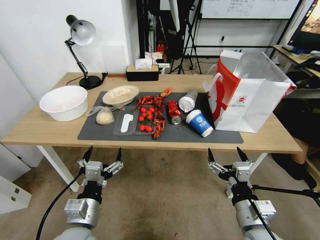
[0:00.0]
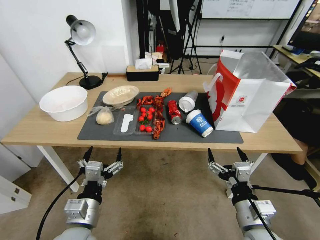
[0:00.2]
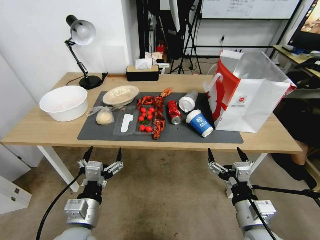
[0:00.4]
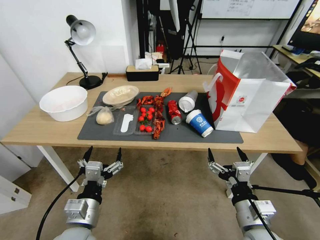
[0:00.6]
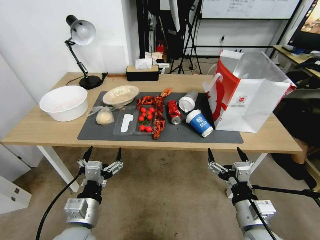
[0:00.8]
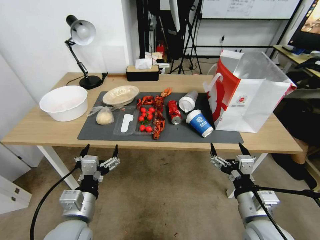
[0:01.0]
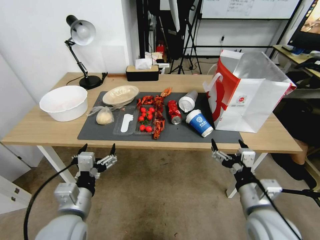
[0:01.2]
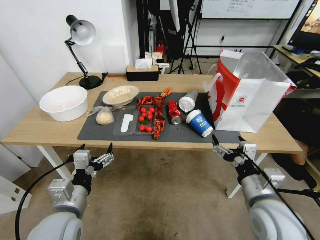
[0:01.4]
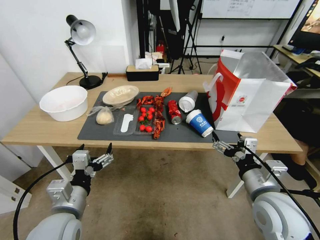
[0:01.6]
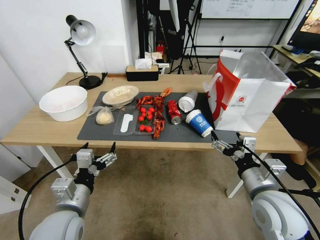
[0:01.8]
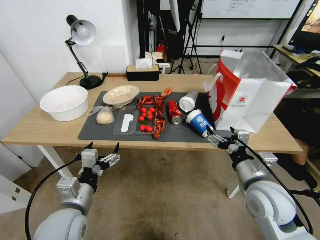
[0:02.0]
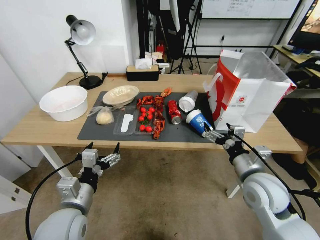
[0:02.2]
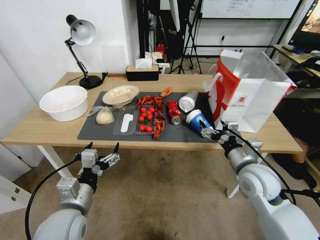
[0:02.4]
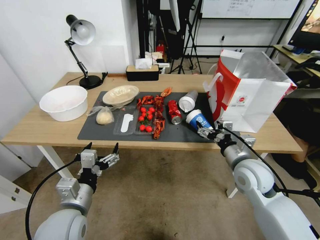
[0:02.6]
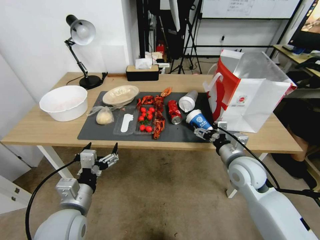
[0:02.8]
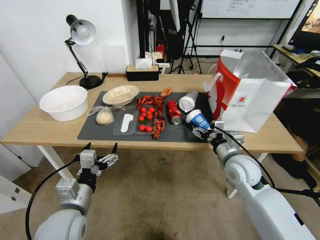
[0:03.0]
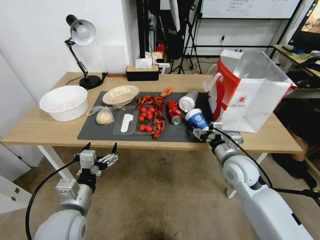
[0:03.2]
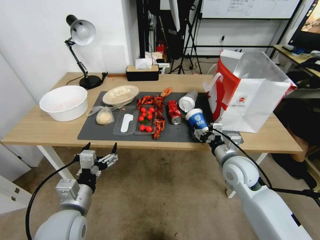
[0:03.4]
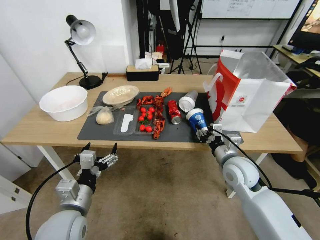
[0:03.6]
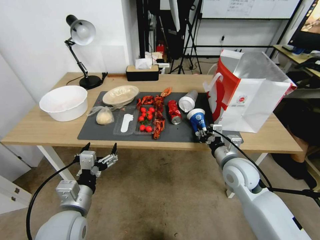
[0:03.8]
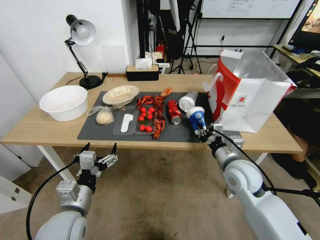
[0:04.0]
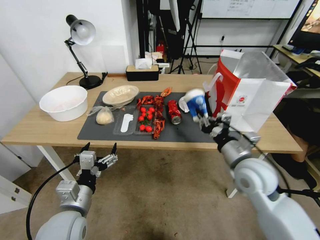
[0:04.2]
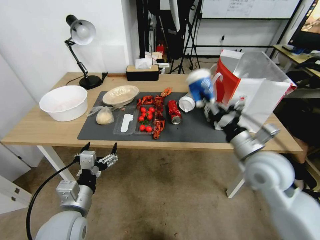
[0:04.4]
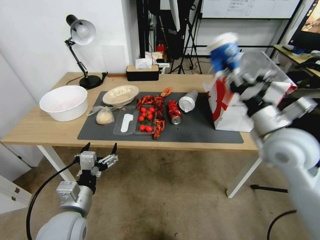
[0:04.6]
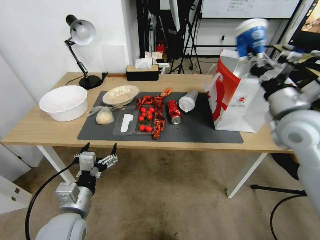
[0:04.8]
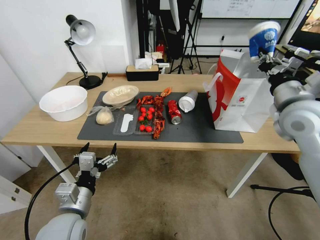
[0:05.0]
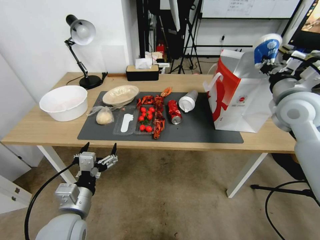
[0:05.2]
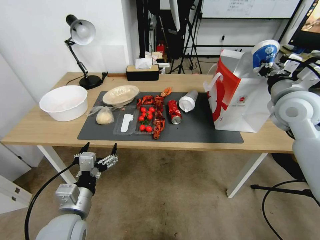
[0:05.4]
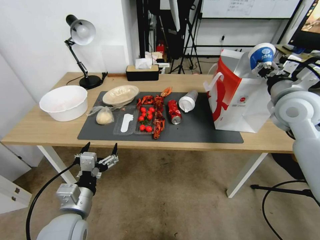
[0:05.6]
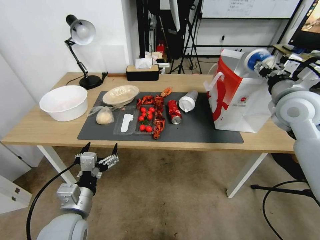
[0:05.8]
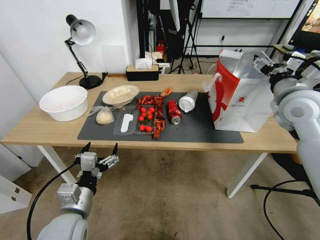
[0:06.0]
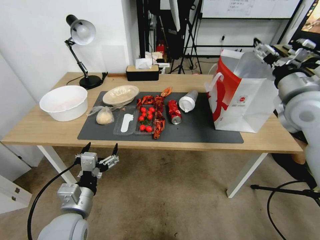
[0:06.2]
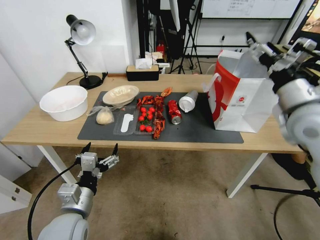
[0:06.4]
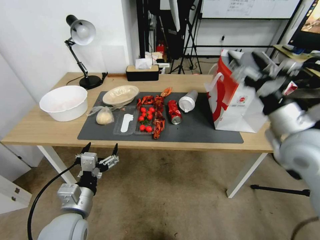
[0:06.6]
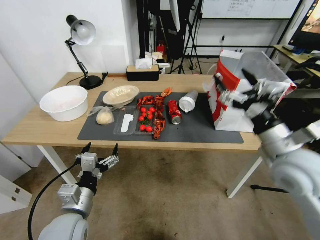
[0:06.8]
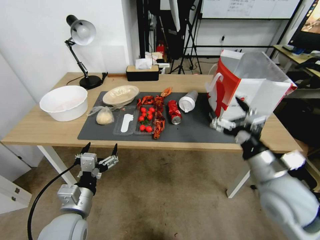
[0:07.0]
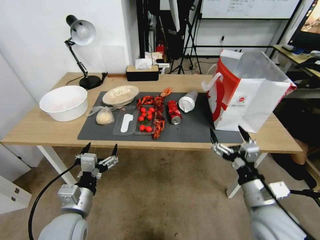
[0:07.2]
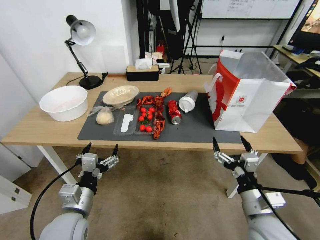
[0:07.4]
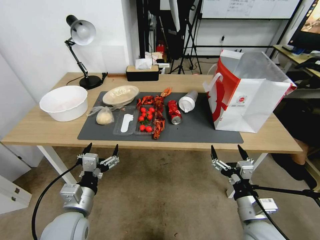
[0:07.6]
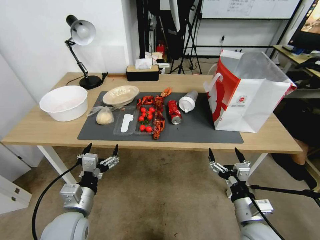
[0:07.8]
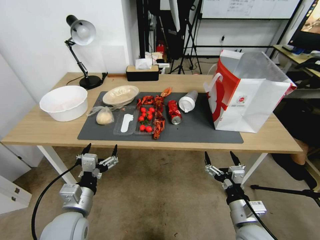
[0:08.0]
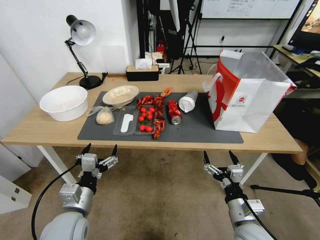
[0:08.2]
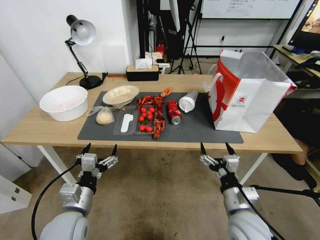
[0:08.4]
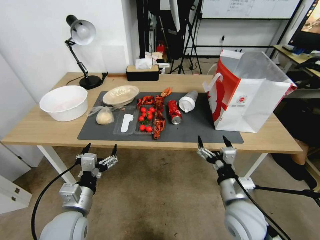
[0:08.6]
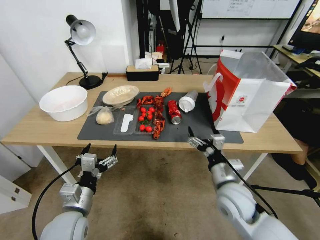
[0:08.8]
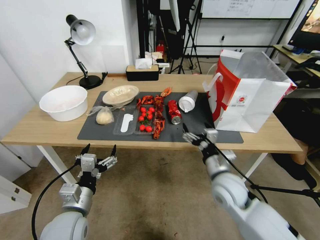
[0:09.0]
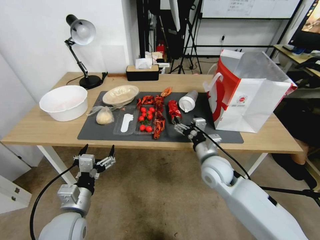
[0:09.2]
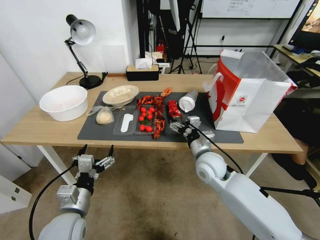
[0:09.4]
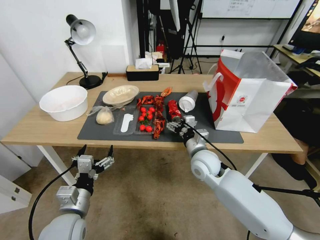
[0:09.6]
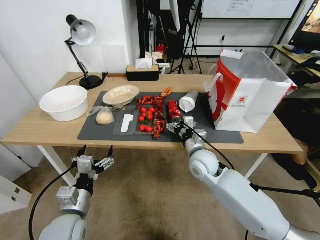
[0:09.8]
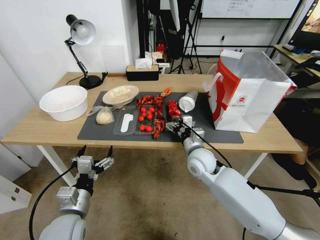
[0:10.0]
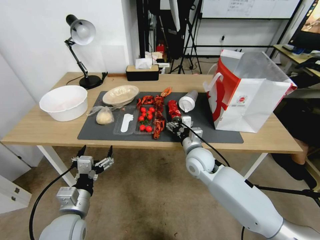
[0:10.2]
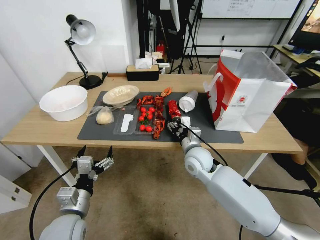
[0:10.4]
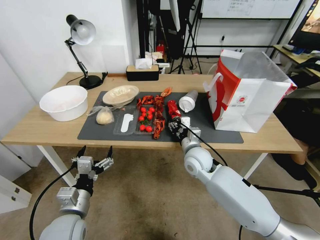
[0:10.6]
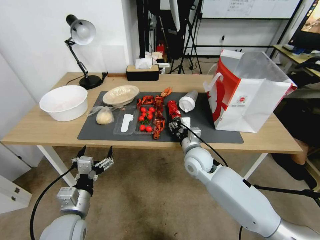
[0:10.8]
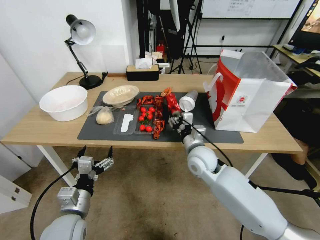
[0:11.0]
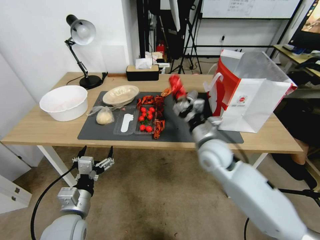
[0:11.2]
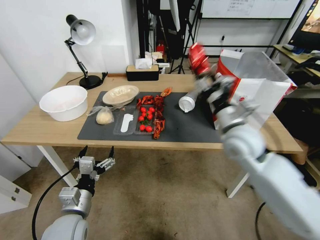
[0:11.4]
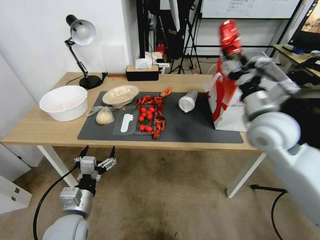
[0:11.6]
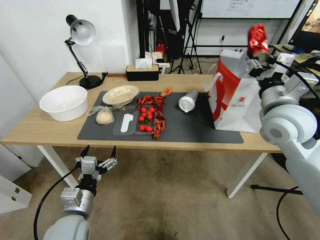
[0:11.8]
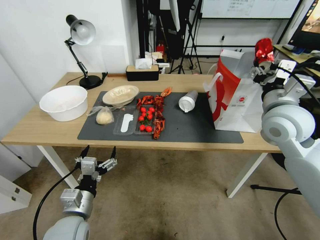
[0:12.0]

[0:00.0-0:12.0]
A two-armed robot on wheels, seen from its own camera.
0:01.6 to 0:03.0: The right gripper heads forward, covering about 15 cm.
0:03.0 to 0:04.4: The right gripper is displaced upward by approximately 10 cm, and closes up.
0:04.4 to 0:06.0: The right gripper goes some 15 cm forward, upward and to the right, and opens.
0:06.0 to 0:07.6: The right gripper shifts about 35 cm downward and backward.
0:07.6 to 0:09.0: The right gripper heads forward and to the left, covering some 15 cm.
0:09.0 to 0:10.4: The right gripper goes roughly 10 cm forward and to the left, and closes.
0:10.4 to 0:12.0: The right gripper is displaced upward and to the right by approximately 30 cm.

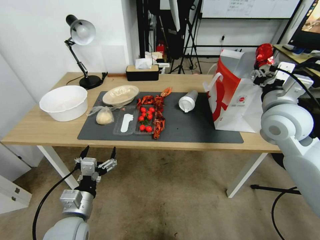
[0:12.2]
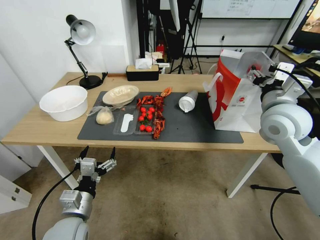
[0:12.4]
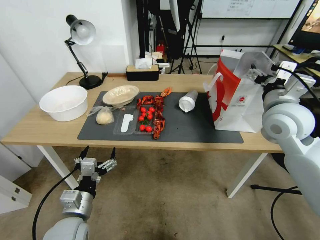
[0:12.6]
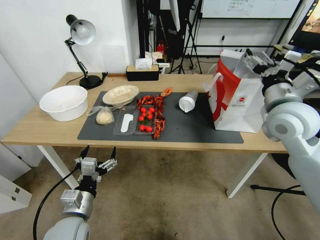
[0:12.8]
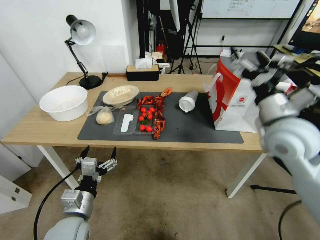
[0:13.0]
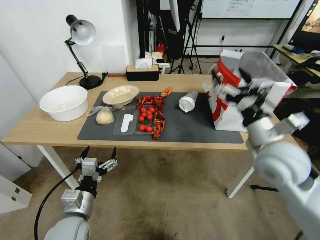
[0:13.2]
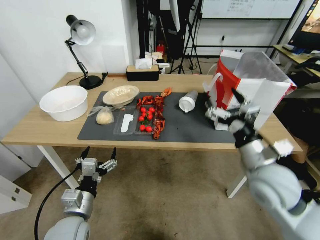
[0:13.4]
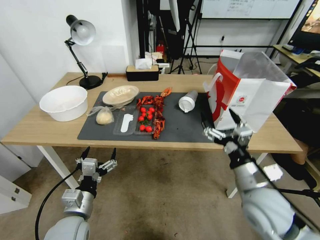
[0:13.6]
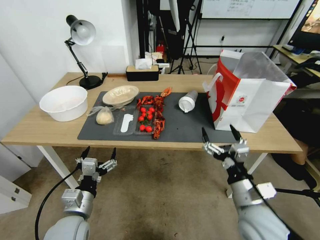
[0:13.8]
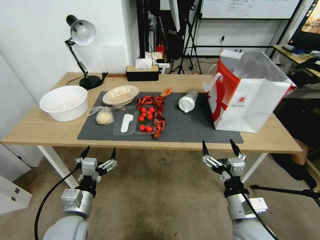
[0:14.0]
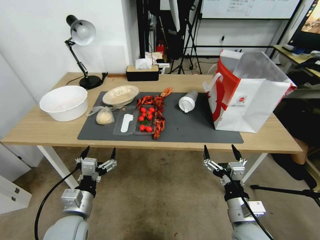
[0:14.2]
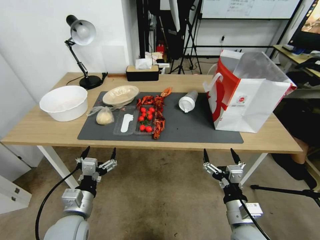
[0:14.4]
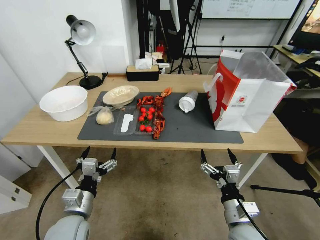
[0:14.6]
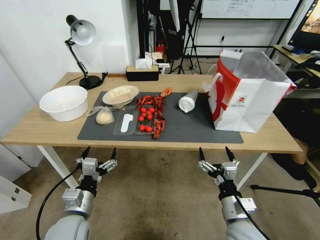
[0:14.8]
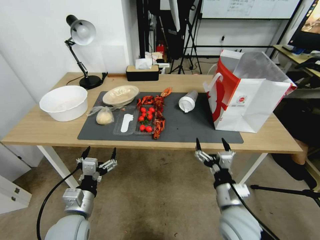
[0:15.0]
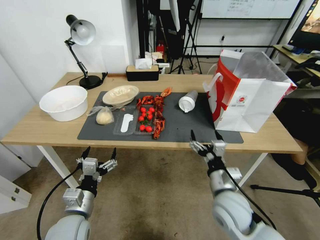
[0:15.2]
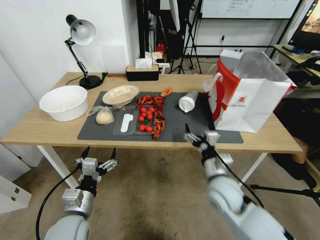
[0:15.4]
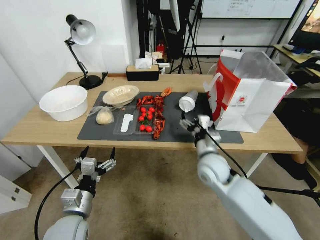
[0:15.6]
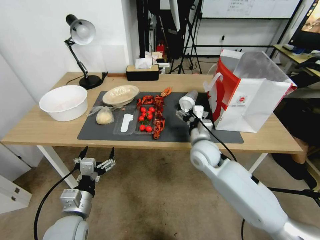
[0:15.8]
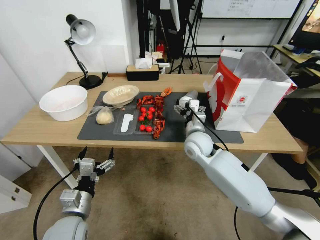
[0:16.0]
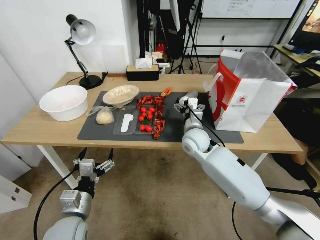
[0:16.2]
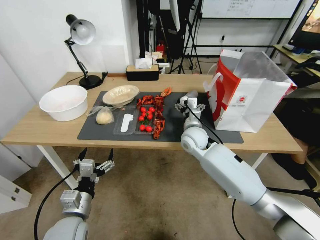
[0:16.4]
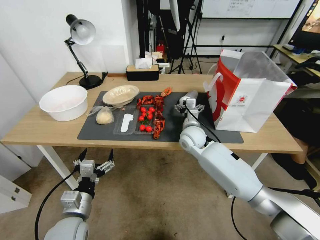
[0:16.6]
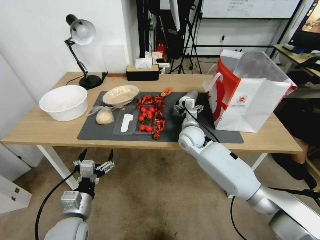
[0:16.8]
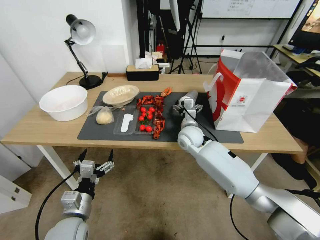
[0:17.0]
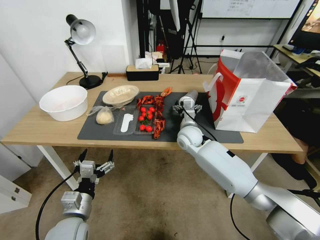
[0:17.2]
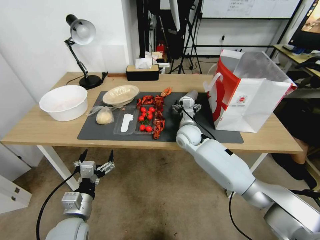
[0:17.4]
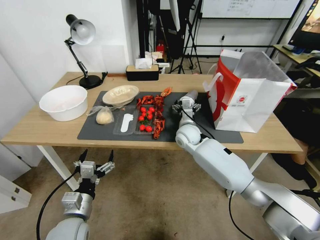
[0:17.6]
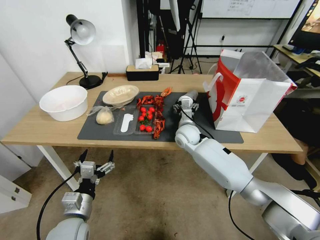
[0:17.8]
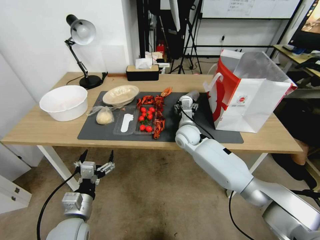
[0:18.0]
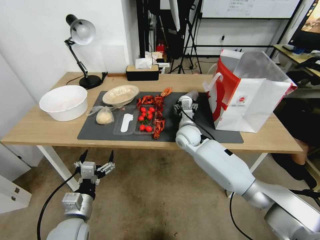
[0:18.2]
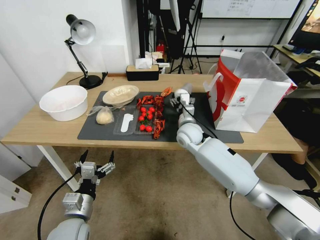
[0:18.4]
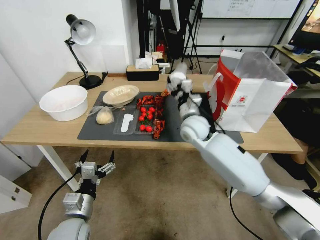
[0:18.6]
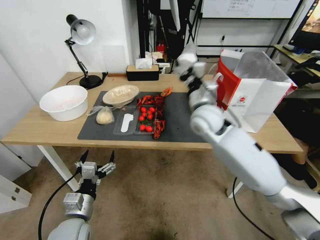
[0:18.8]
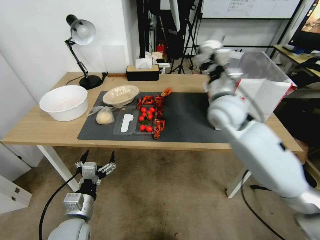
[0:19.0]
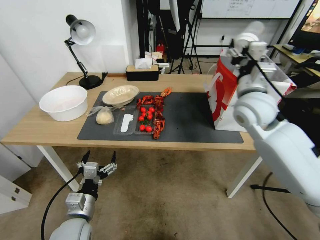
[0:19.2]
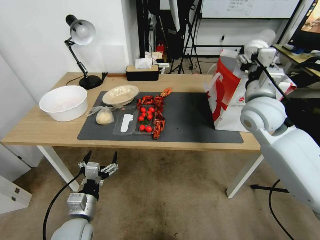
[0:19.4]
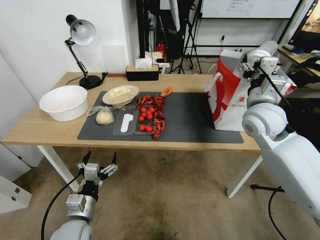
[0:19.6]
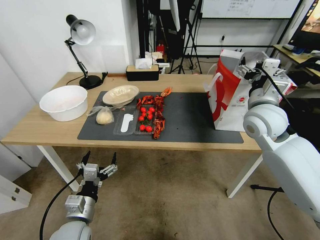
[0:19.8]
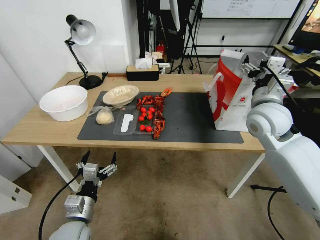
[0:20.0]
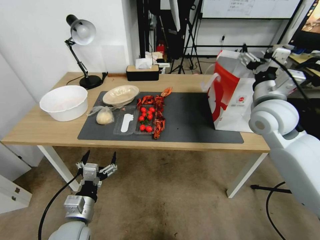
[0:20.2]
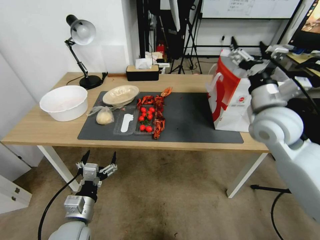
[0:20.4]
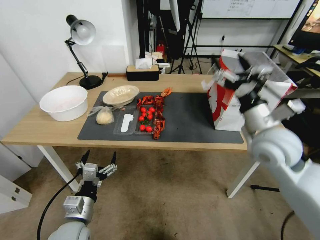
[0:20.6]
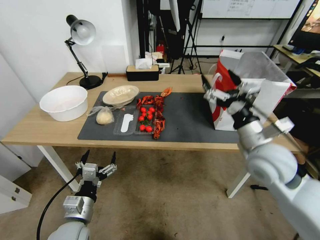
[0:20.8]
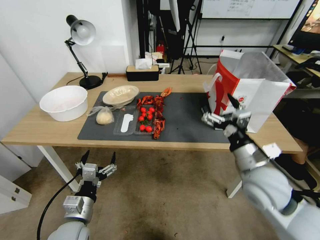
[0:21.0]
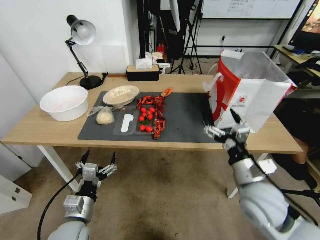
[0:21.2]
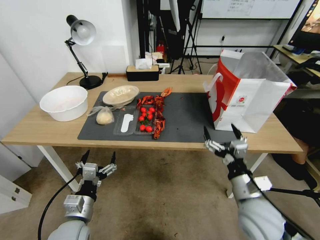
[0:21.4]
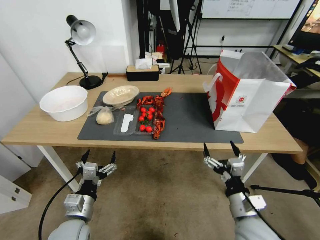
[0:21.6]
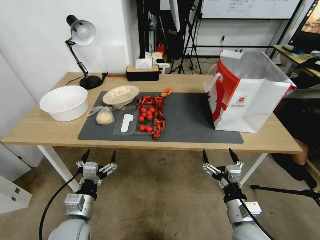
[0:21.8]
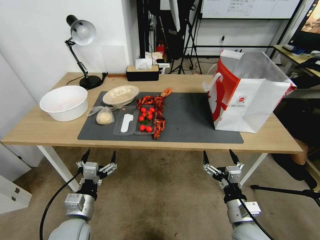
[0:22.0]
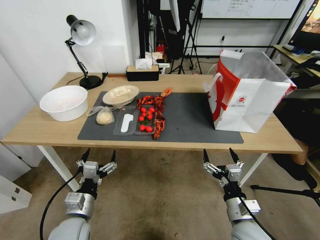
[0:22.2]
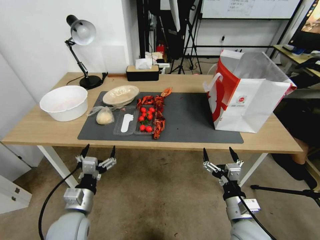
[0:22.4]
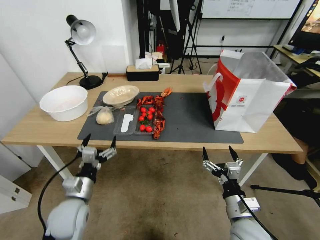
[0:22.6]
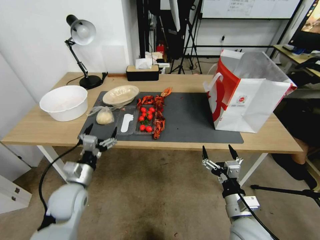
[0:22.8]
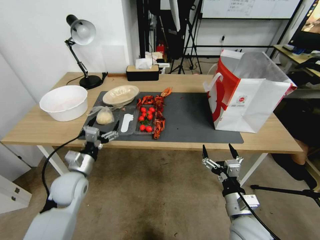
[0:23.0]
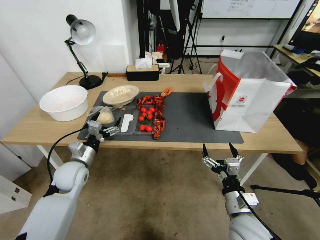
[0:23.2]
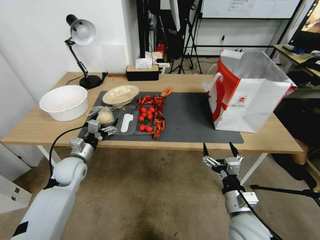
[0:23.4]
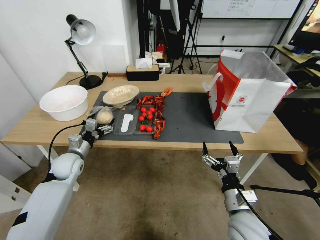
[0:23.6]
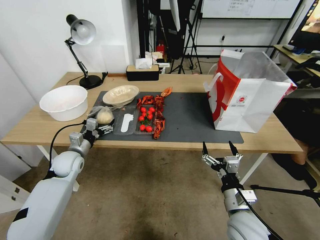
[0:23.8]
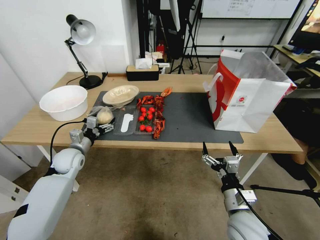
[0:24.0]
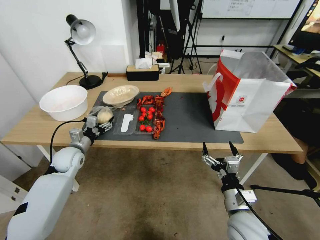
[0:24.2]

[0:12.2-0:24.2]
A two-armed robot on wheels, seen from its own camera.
0:12.2 to 0:13.8: The right gripper goes approximately 25 cm downward and backward, and opens its fingers.
0:13.8 to 0:15.2: The right gripper ends up some 5 cm from where it was.
0:15.2 to 0:16.6: The right gripper travels forward by some 25 cm.
0:16.6 to 0:18.2: The grippers move only a little.
0:18.2 to 0:19.8: The right gripper travels upward, to the right and backward by roughly 25 cm.
0:19.8 to 0:21.2: The right gripper heads backward and downward, covering roughly 20 cm.
0:21.2 to 0:22.6: The right gripper moves downward and backward, some 10 cm.
0:22.6 to 0:24.2: The left gripper is displaced forward and to the left by about 20 cm.
